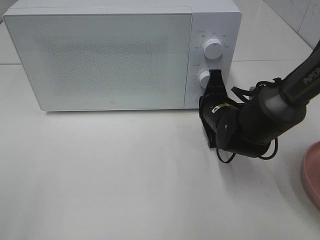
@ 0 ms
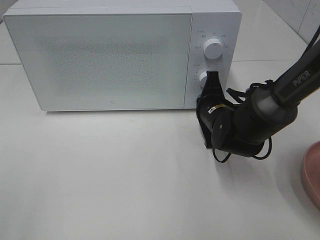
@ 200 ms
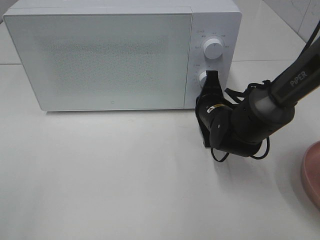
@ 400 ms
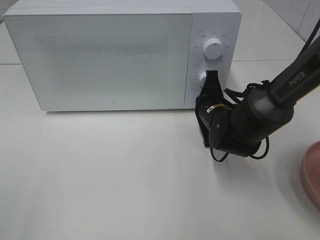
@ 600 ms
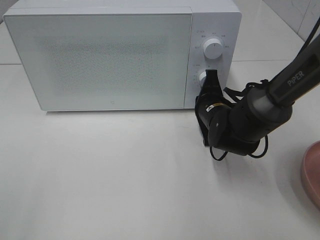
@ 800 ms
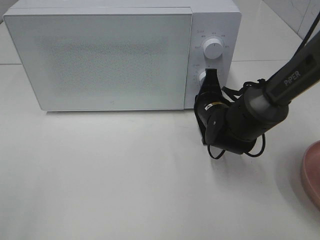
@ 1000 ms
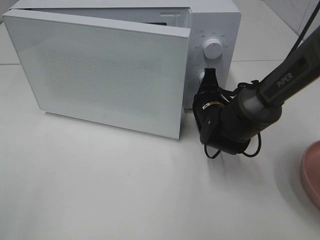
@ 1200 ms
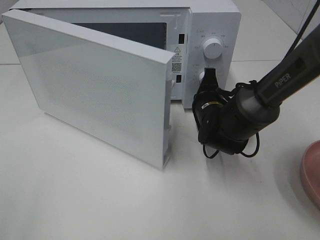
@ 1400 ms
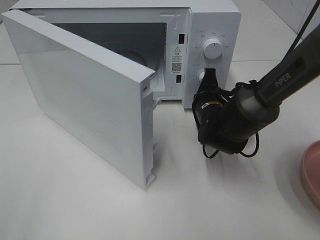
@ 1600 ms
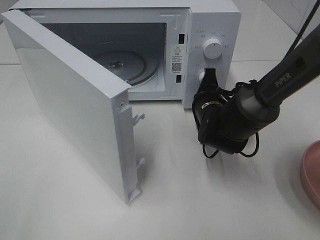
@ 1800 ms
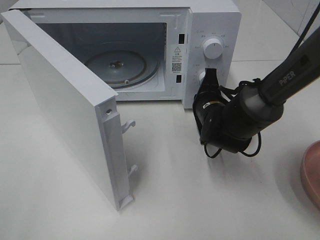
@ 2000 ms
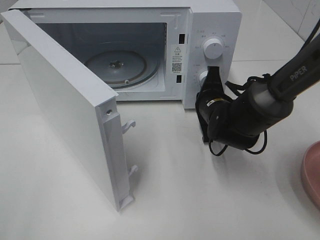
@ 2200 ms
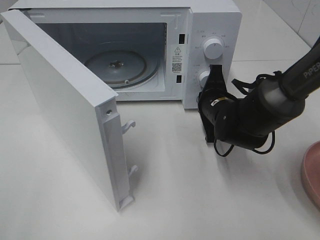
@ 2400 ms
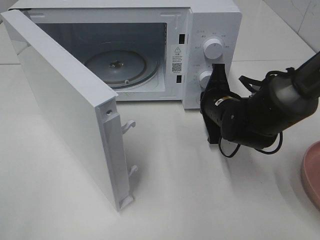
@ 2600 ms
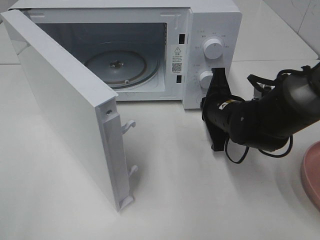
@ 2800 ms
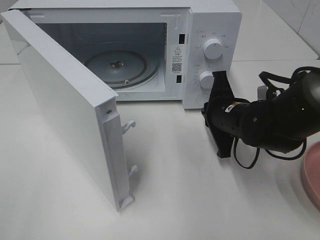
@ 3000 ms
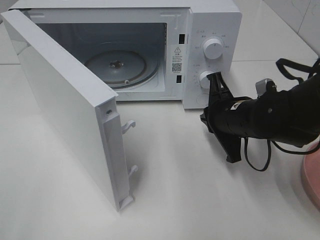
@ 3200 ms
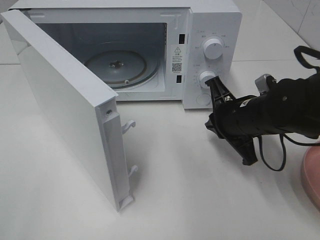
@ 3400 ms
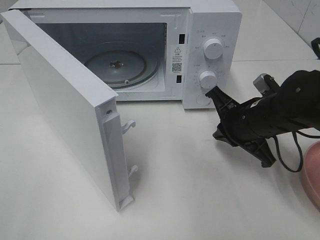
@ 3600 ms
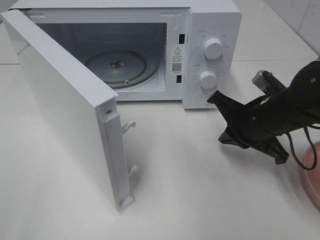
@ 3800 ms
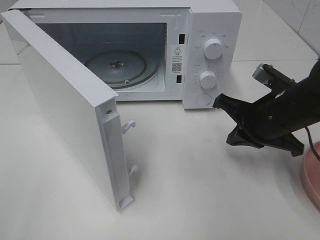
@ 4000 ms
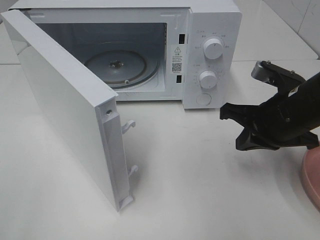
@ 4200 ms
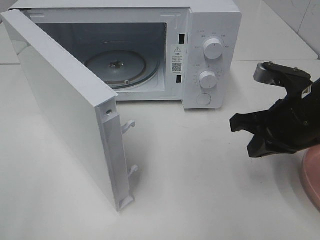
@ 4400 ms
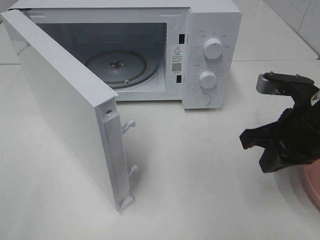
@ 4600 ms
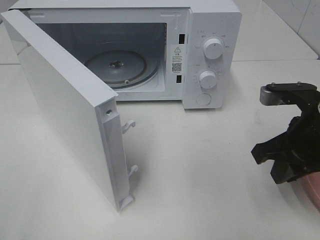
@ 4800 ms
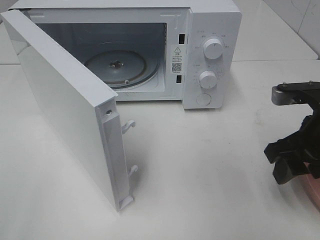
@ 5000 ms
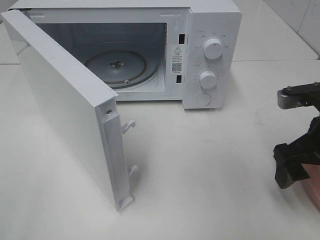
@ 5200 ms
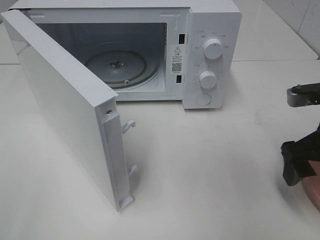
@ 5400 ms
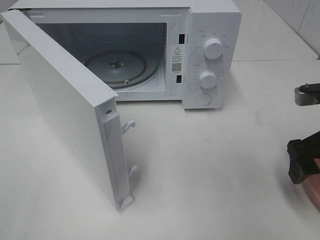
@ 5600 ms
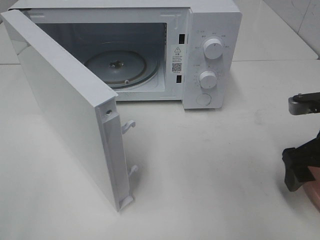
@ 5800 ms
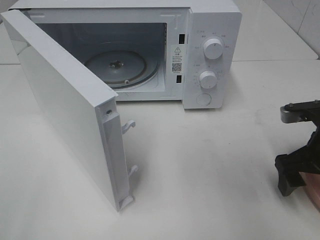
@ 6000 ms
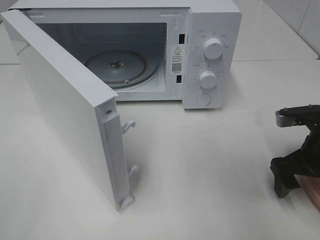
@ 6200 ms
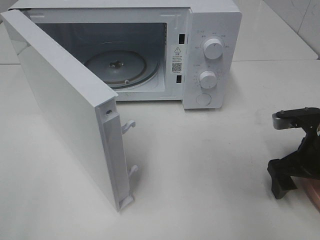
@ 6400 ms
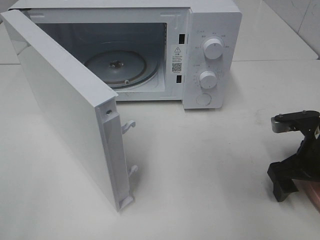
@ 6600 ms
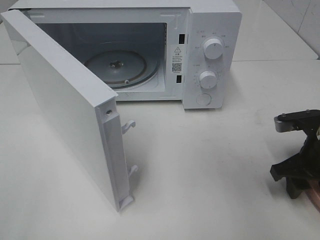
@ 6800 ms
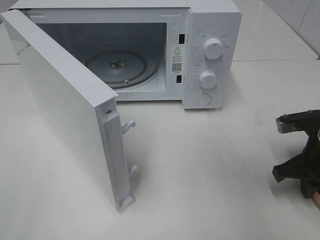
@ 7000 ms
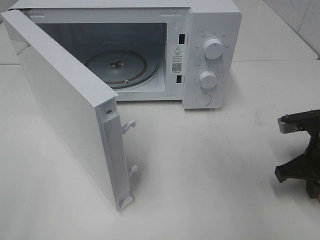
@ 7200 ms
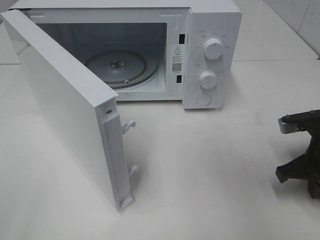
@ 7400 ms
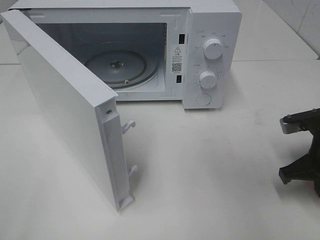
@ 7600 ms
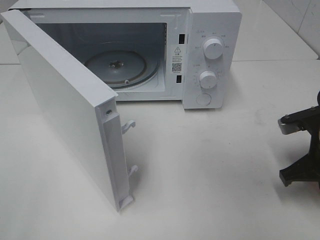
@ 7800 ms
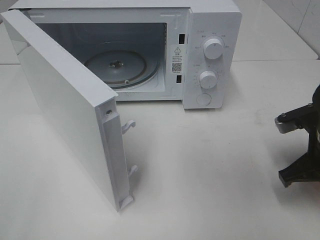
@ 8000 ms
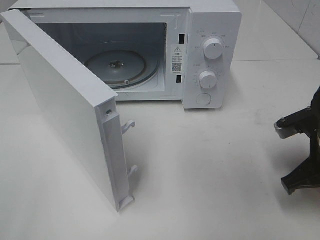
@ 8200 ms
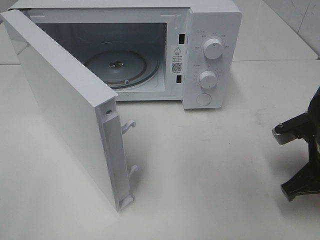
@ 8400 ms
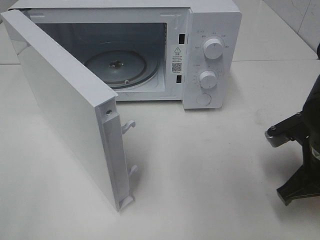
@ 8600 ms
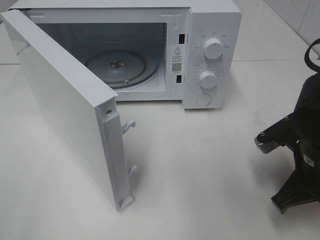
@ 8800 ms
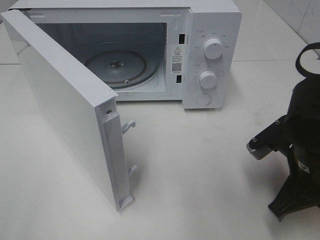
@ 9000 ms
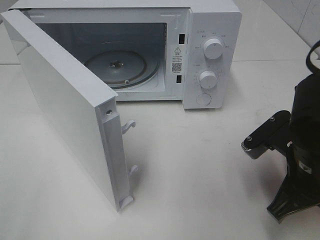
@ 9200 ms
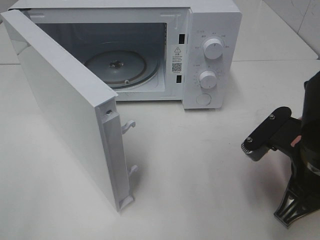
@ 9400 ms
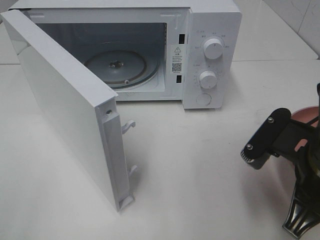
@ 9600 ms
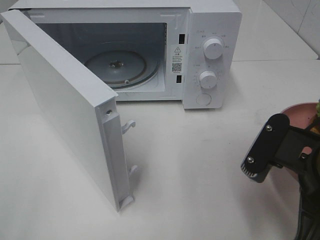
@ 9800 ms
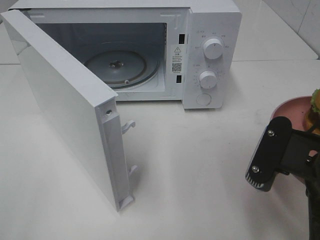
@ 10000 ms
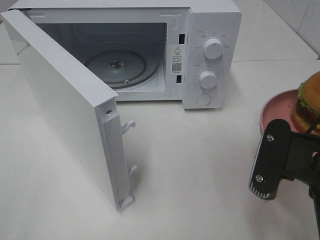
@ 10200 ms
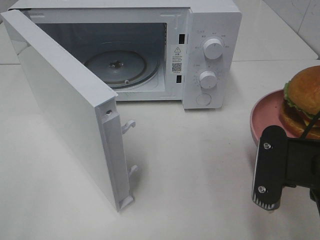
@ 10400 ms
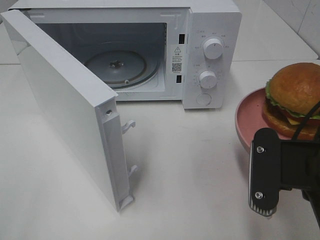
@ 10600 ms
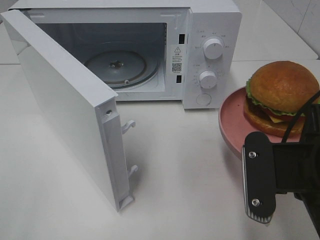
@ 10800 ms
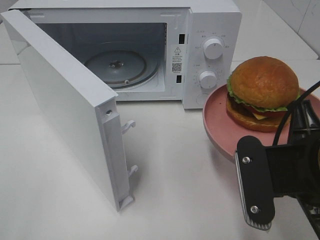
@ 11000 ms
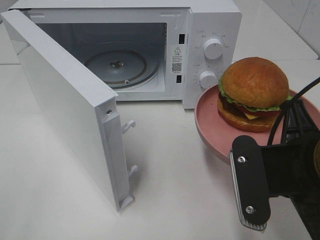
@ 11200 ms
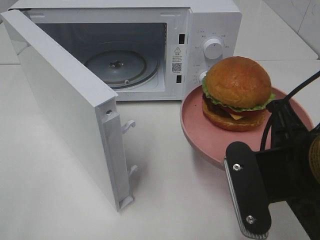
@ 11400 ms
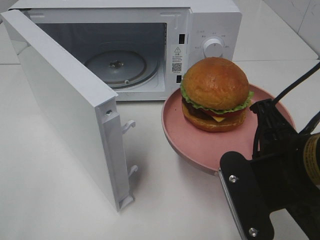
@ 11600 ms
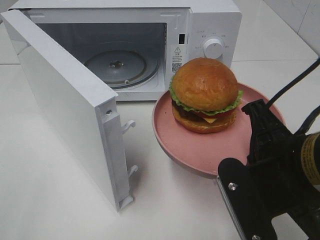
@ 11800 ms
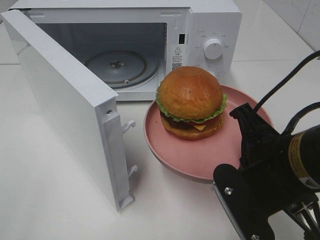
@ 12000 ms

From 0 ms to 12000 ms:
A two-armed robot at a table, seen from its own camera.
Task of the whole recording: Heat the burger.
Step, from 0 ms to 2600 ms: Right hand: press the switch.
Step, from 2800 ms to 7200 ms: Right hand: grab the plate with the hamburger.
From 1600 ms to 3000 ms: The right gripper heads backward, covering some 5 cm.
From 3000 ms to 4400 ms: The right gripper moves upward, backward and to the right, approximately 10 cm.
From 4400 ms to 6000 ms: The right gripper moves to the right, some 5 cm, and opens its fingers.
From 6000 ms to 7600 ms: The right gripper closes.
From 7600 ms to 9000 ms: The right gripper moves to the left, approximately 5 cm.
From 9000 ms to 10400 ms: The right gripper heads backward and upward, covering some 10 cm.

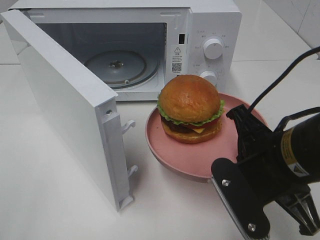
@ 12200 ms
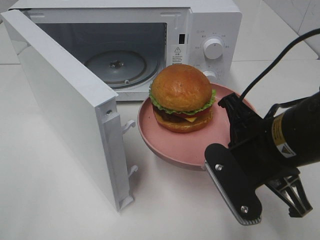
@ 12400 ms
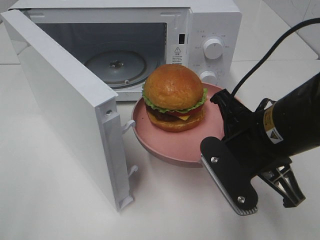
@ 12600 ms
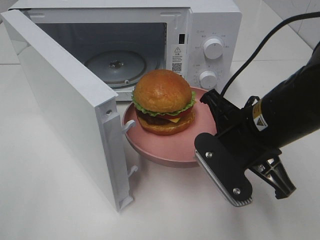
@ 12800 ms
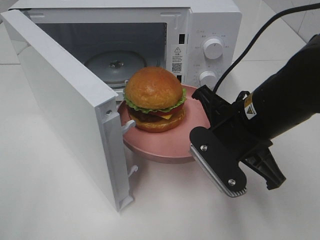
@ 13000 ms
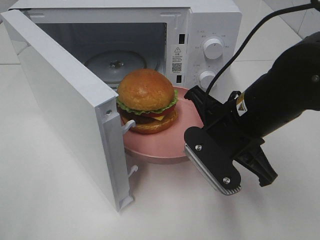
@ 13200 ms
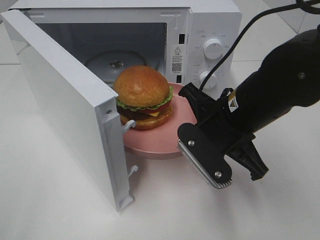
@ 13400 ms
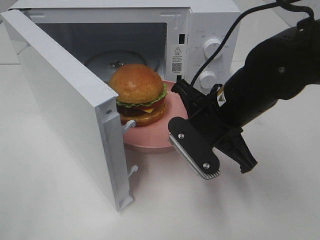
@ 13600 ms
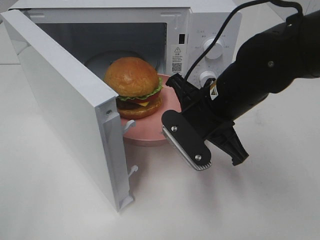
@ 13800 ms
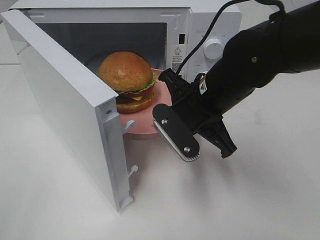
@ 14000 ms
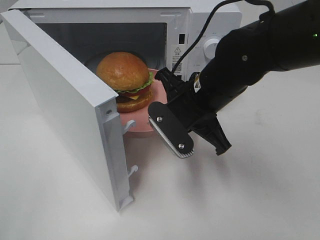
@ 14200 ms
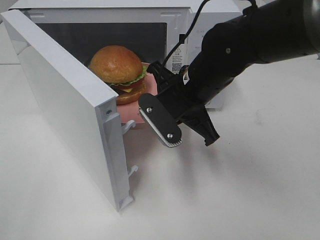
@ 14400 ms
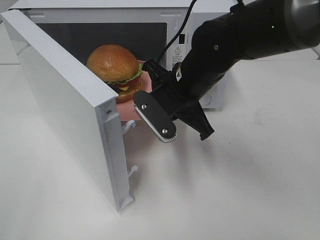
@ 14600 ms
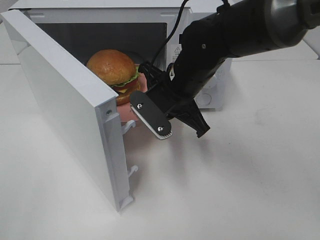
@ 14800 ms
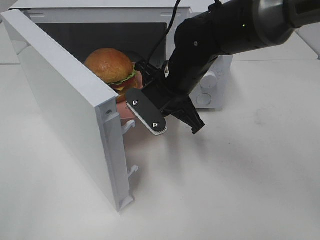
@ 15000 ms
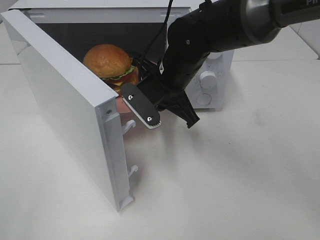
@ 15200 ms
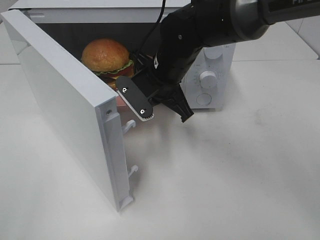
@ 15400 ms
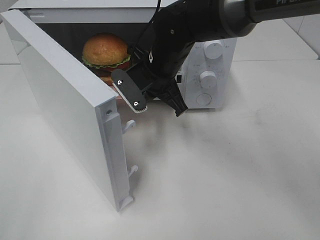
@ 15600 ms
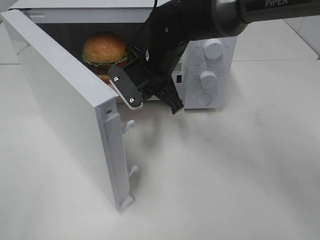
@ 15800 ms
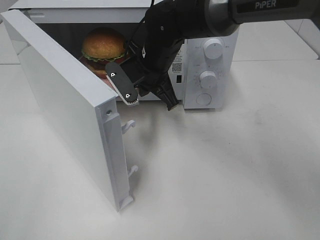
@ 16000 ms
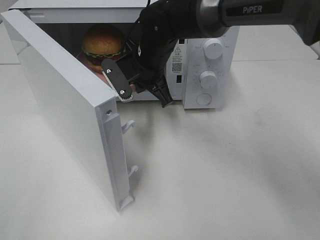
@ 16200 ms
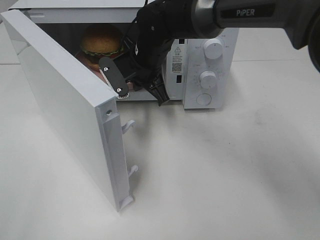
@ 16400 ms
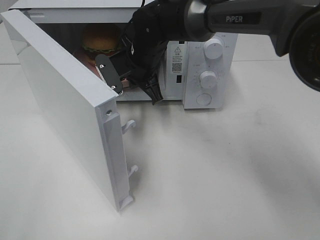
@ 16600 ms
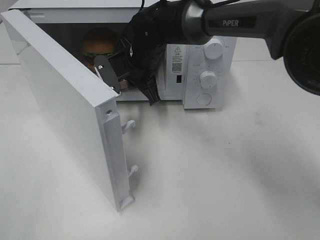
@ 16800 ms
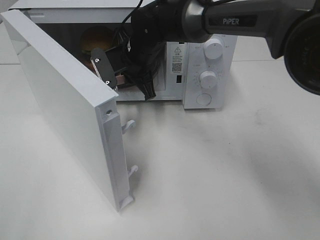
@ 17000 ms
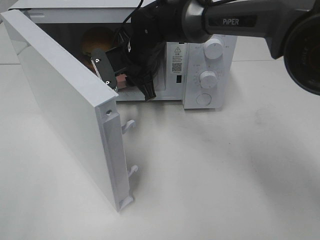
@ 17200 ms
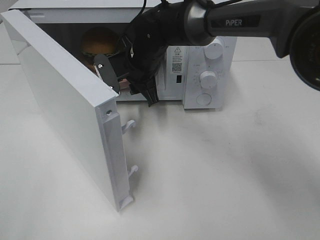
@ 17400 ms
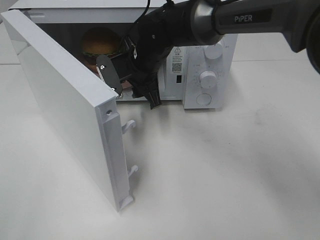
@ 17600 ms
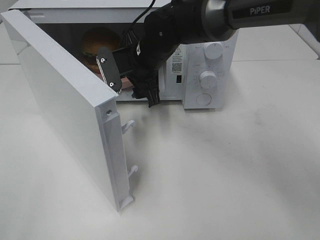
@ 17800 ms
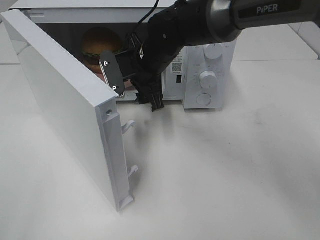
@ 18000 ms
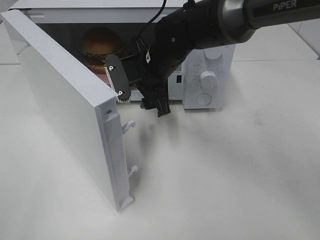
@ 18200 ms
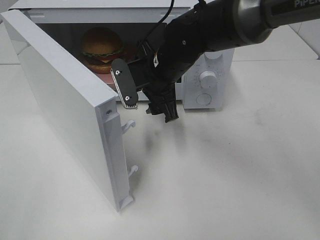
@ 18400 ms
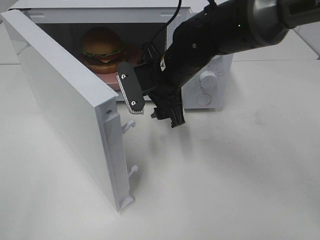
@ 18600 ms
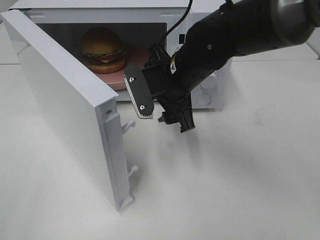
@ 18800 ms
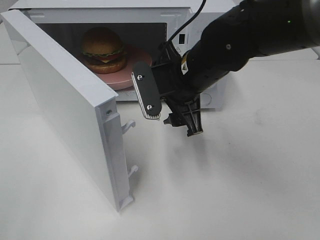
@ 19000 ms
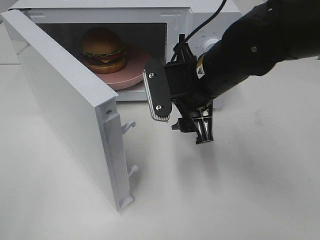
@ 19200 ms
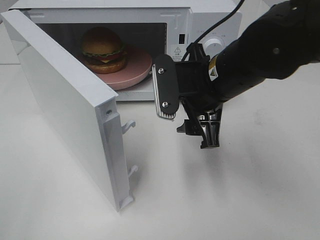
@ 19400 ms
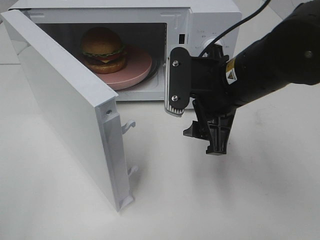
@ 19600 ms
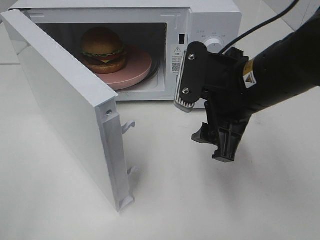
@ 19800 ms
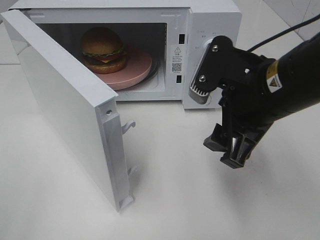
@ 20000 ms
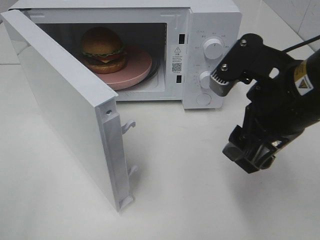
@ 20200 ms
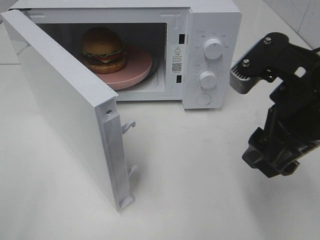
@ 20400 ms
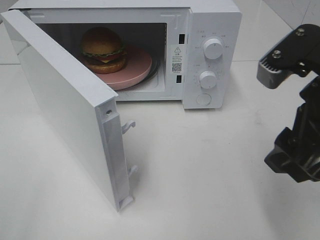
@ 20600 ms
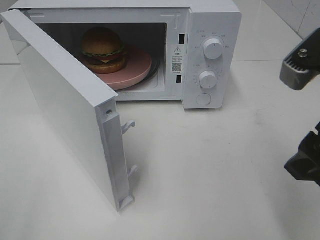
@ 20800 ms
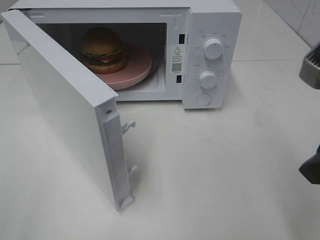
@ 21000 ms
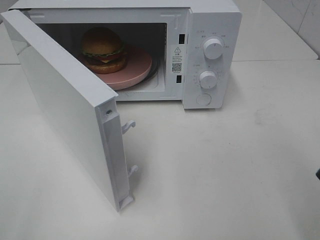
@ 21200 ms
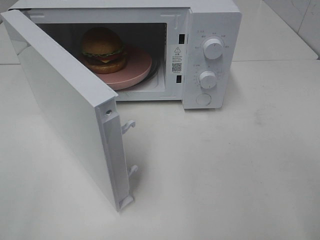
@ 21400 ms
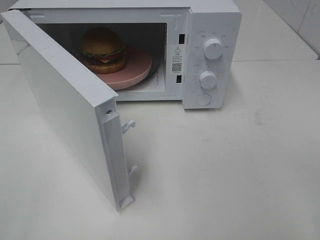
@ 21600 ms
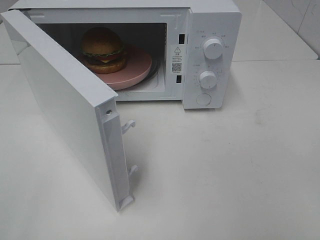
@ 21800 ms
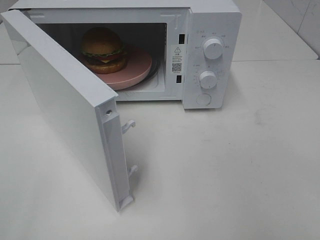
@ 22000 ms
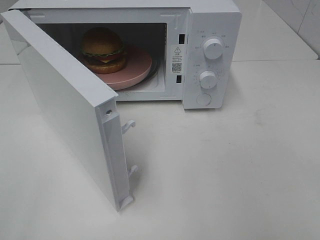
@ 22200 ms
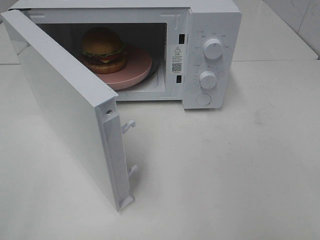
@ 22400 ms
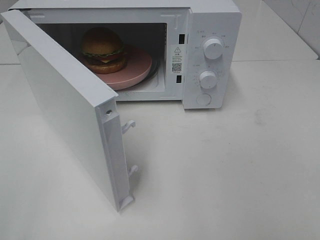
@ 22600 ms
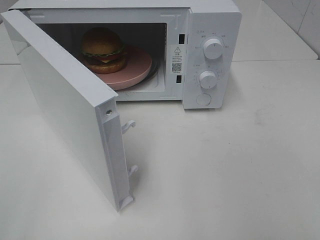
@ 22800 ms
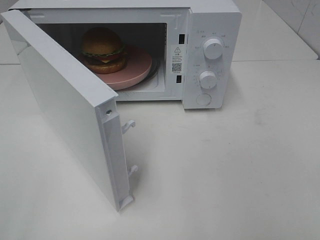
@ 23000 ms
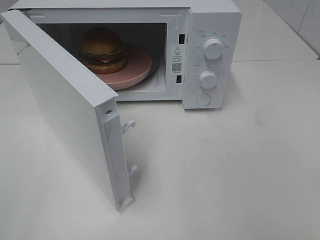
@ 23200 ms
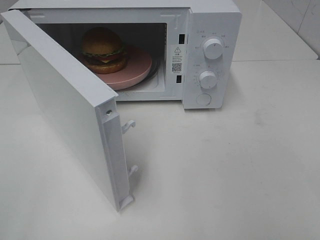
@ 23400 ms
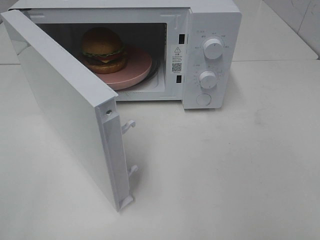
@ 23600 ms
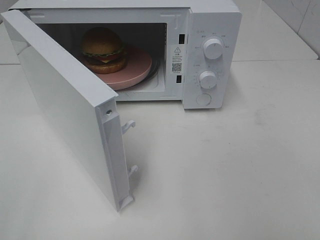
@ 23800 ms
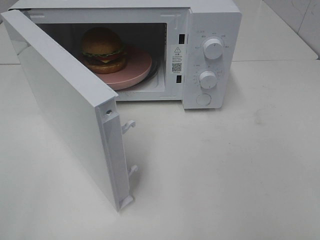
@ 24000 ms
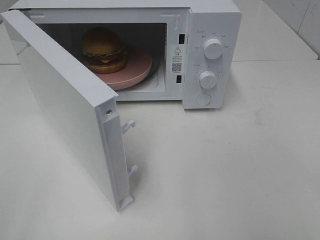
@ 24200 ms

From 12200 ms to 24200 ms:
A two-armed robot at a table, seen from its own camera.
Task of the whole recording: Heat the burger.
Step, from 12200 ms to 17200 ms: Right hand: place the plate in the microwave.
From 12200 ms to 13800 ms: The right gripper heads forward, covering approximately 10 cm.
From 13800 ms to 15200 ms: The right gripper travels forward and to the left by about 10 cm.
From 15200 ms to 16600 ms: The right gripper travels forward by approximately 10 cm.
From 16600 ms to 18200 ms: The right gripper ends up some 5 cm from where it was, and opens its fingers.
From 18200 ms to 19800 ms: The right gripper is displaced backward and to the right by some 20 cm.
From 19800 ms to 21200 ms: The right gripper travels backward, to the right and upward by about 15 cm.
From 21200 ms to 22600 ms: The right gripper moves backward and to the right, approximately 15 cm.
From 22600 ms to 24200 ms: The two grippers keep their place.
